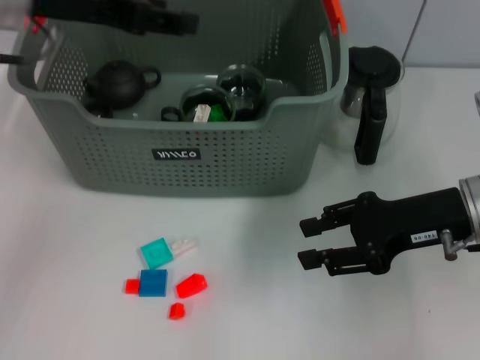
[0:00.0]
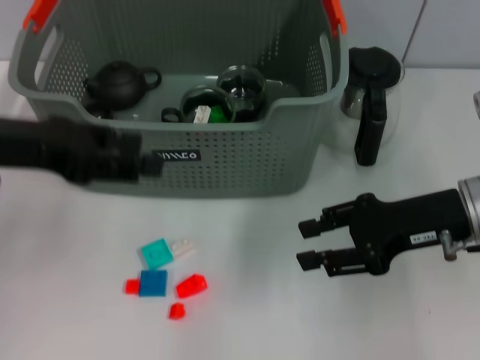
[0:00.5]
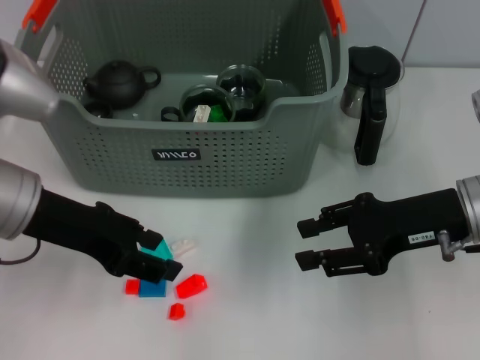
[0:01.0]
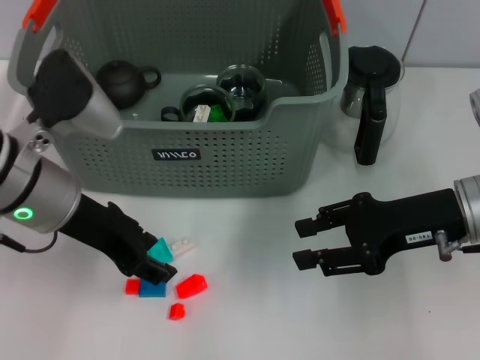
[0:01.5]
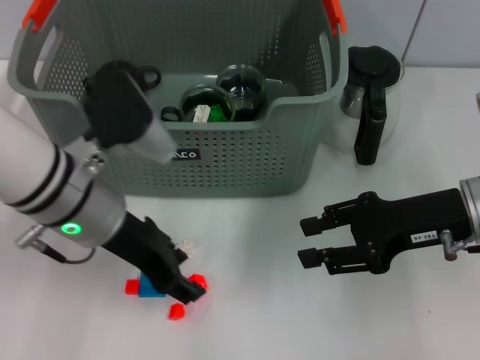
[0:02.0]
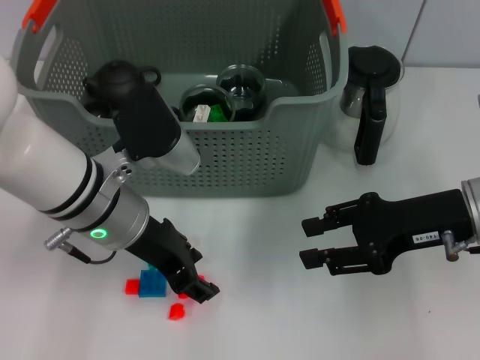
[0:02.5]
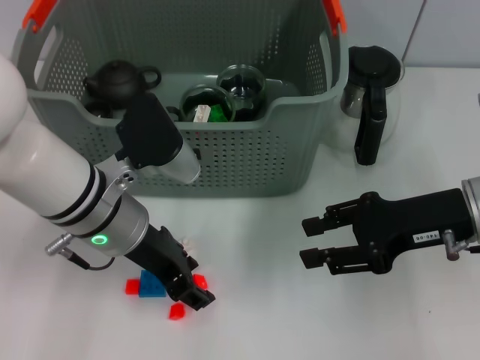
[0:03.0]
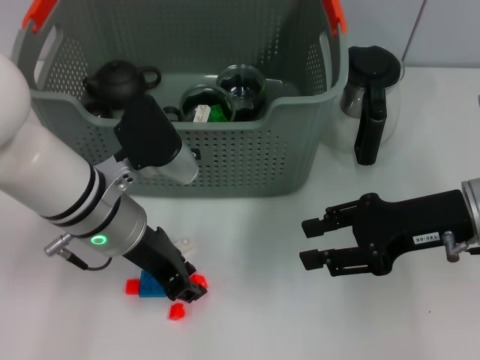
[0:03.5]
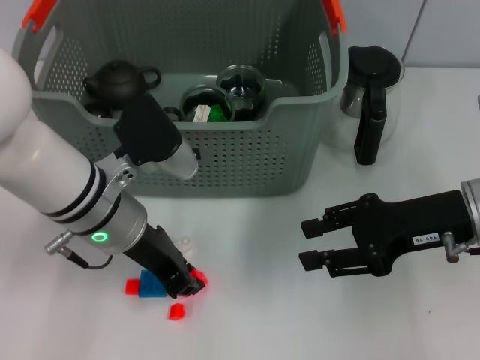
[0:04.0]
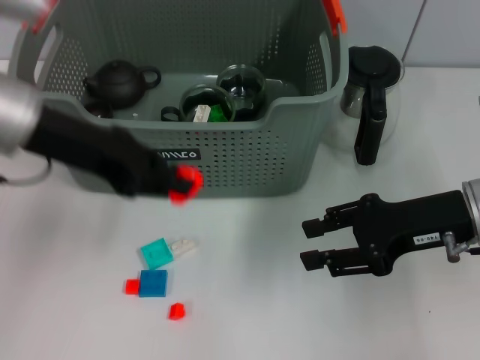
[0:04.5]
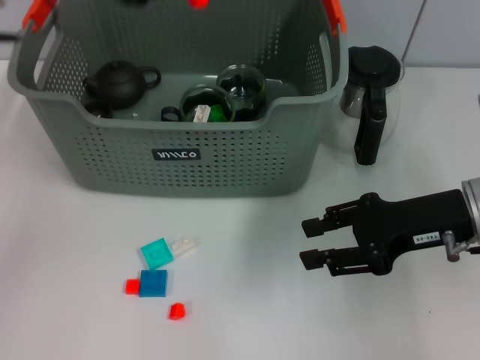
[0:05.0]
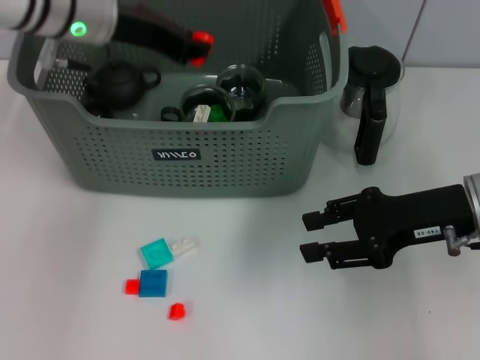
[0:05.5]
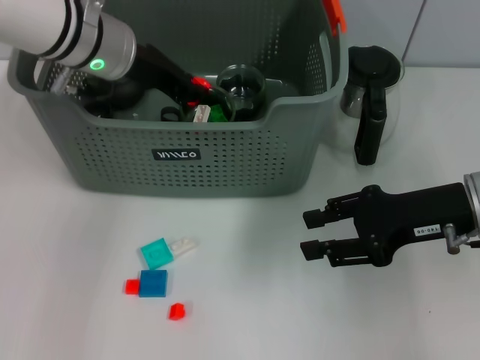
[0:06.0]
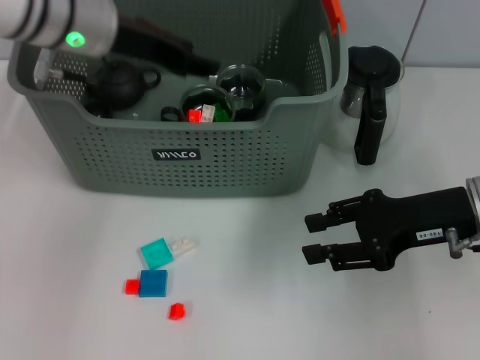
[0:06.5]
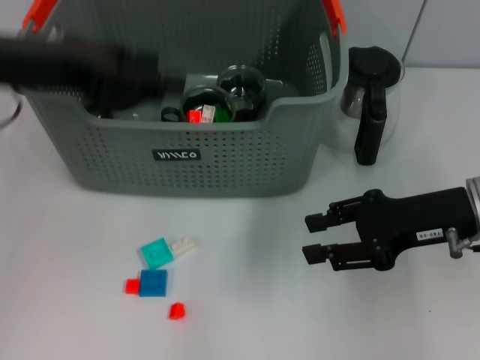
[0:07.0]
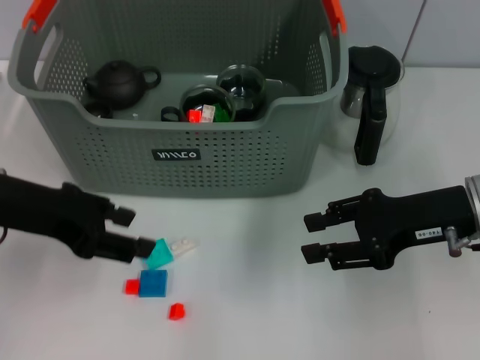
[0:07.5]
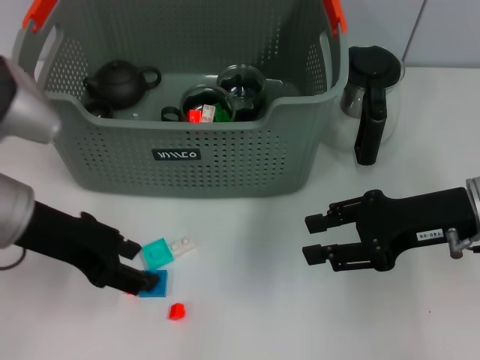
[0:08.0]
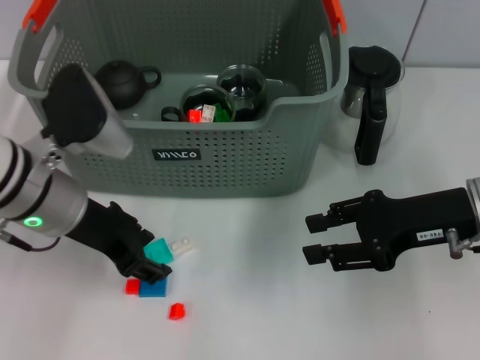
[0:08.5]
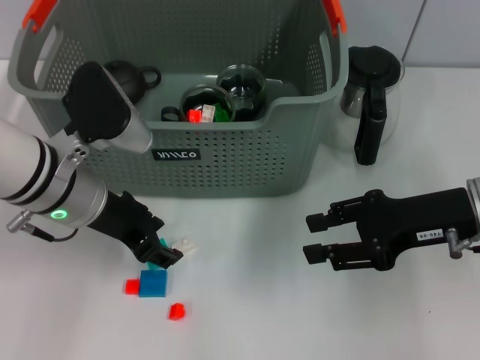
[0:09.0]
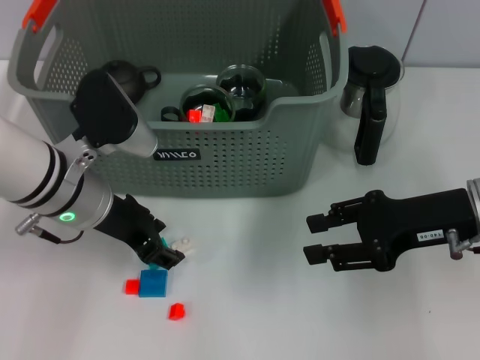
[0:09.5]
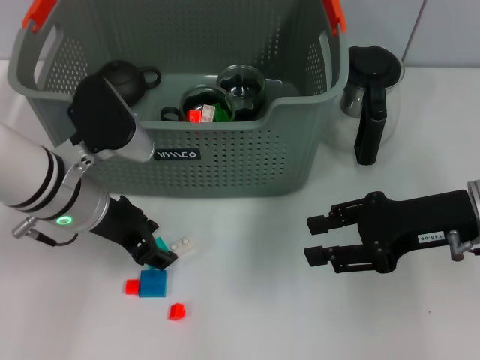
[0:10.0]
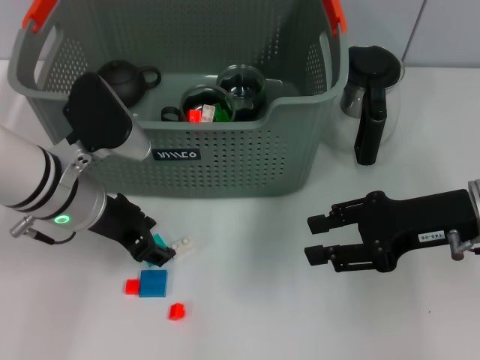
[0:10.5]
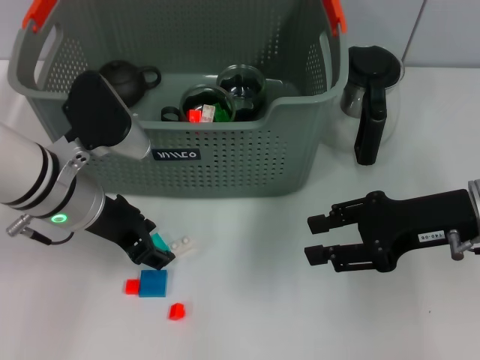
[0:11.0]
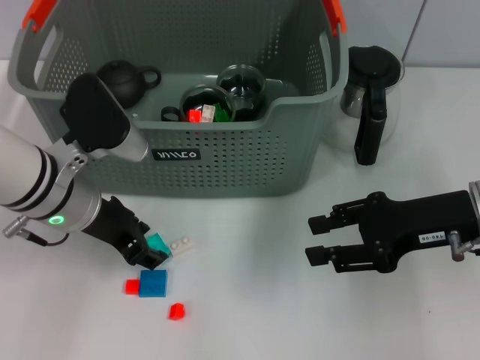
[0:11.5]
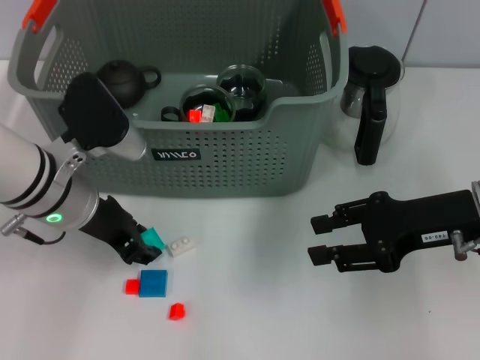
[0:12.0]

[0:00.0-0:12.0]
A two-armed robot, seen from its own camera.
Task of the whole recording: pick up the teacup on the table and place it into the storage bin, pick up the block on the table and place it into the storage bin.
Step, 0.0 to 4.0 s: Grasp the orange block with left gripper.
Step, 4.5 to 6.5 s: Place the orange block in the storage box with left gripper.
0.0 to 2.0 s: The left gripper shifts about 15 cm downward, to the right and backward.
2.0 to 4.0 s: The left gripper closes up.
4.0 to 6.0 s: The left gripper travels forward and upward by about 15 cm.
6.0 to 8.0 s: The left gripper travels backward and to the left by roughly 15 cm, and opens its fingers.
8.0 to 10.0 s: The left gripper travels downward by roughly 5 cm.
10.0 to 12.0 s: The two grippers keep their place.

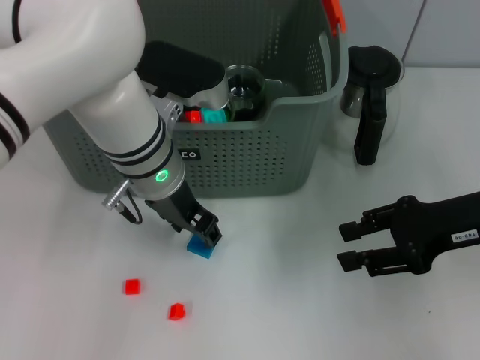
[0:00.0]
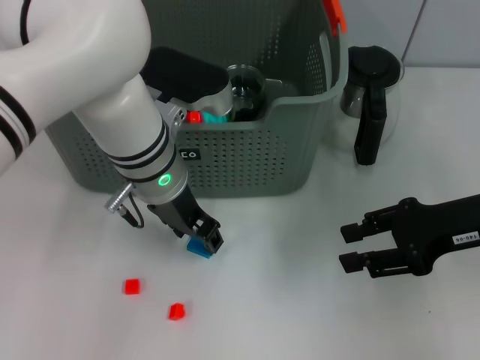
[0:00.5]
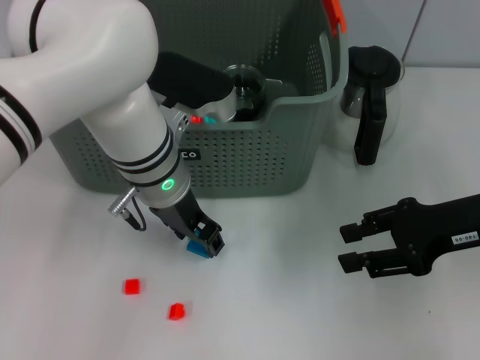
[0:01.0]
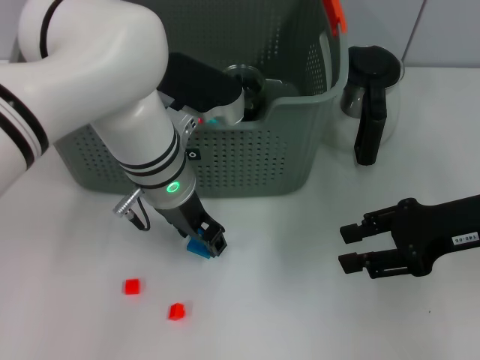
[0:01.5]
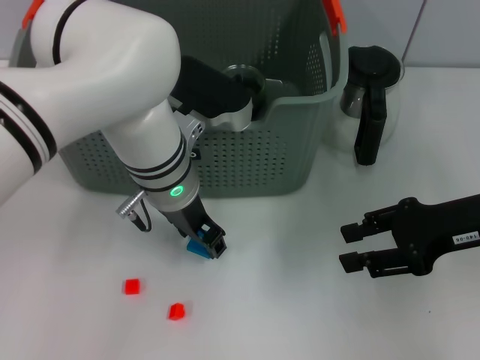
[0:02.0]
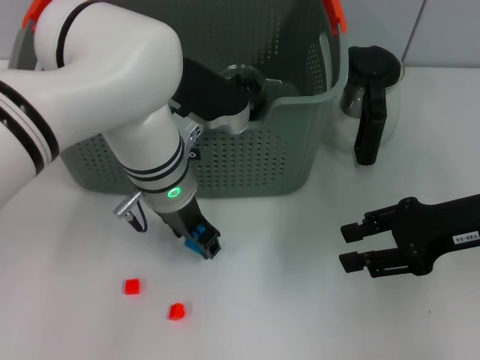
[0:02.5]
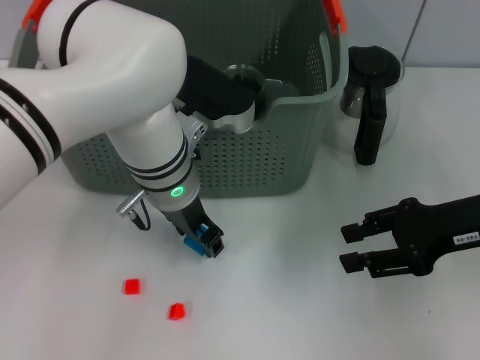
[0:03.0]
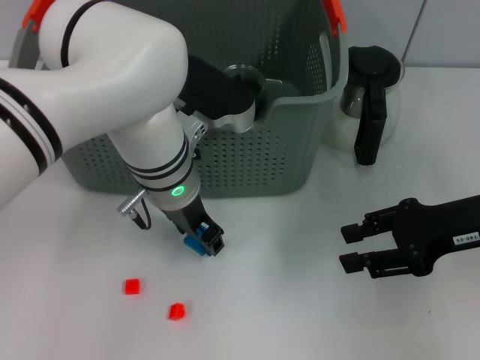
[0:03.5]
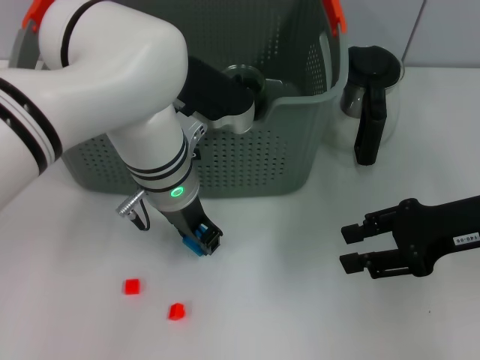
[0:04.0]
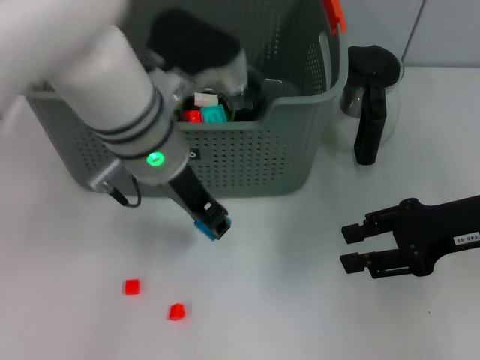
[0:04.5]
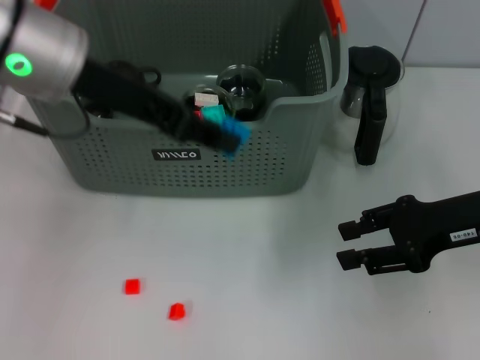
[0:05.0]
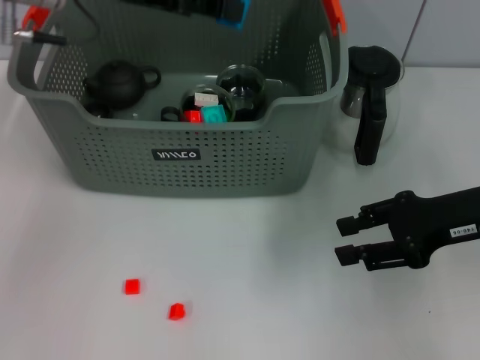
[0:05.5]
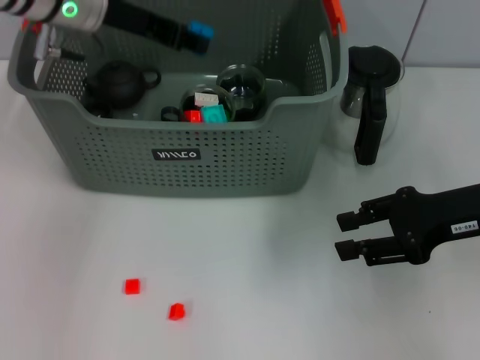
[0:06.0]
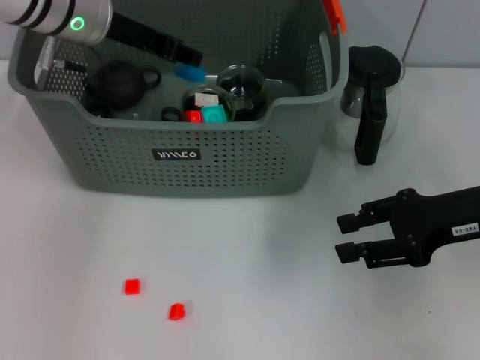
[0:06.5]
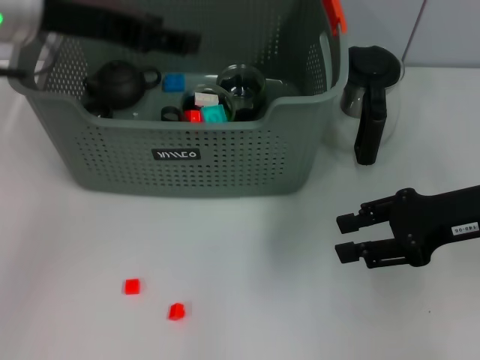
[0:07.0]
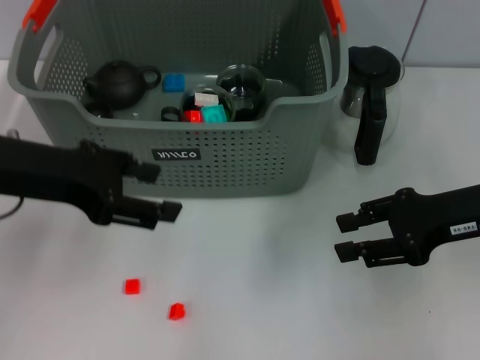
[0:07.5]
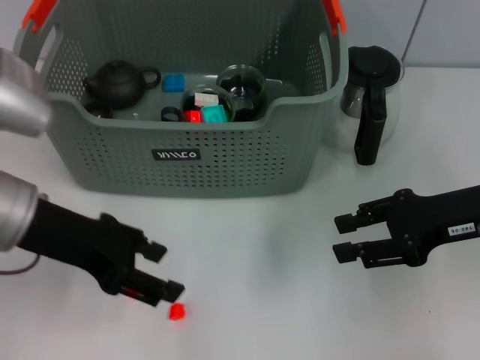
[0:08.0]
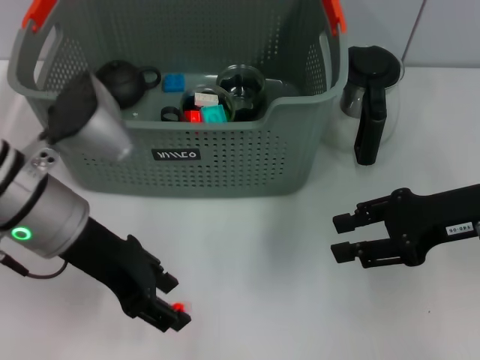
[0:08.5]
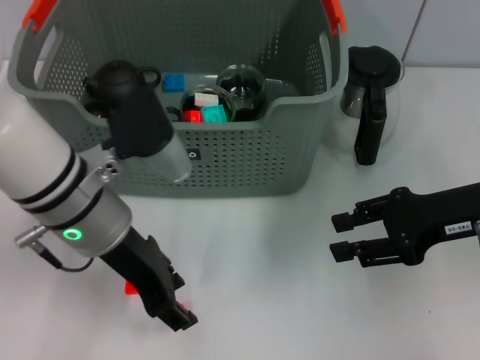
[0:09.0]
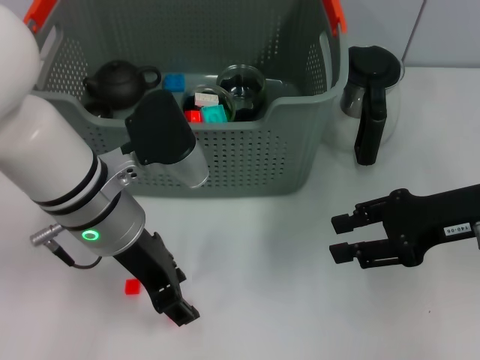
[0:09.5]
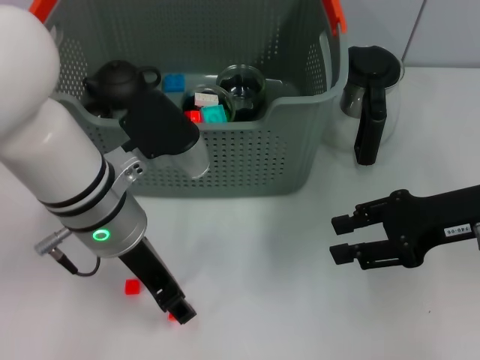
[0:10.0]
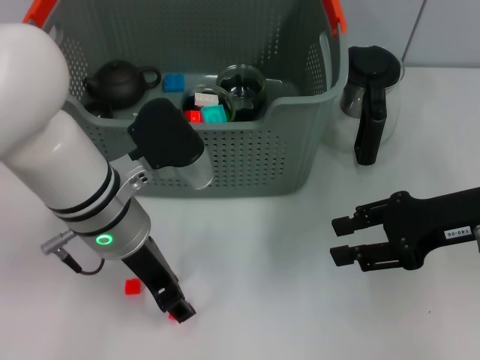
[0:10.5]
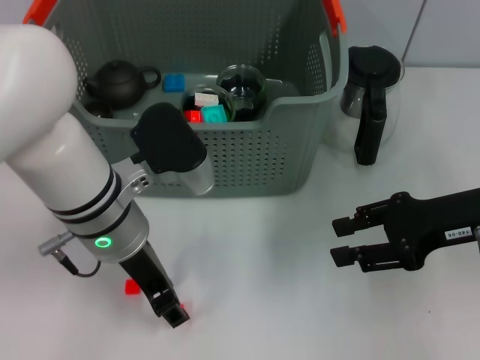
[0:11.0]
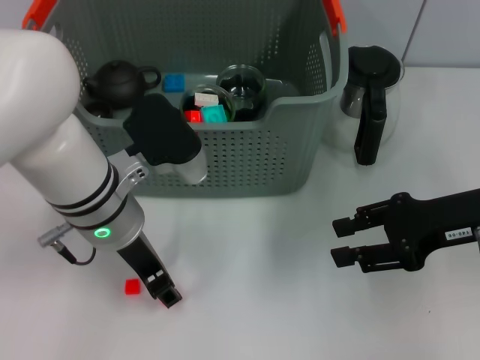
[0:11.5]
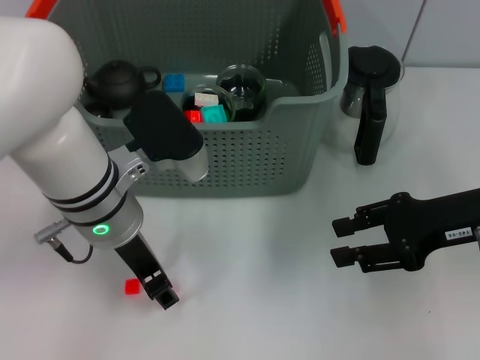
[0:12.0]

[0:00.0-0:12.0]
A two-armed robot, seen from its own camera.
Task of the whole recording: pick up the teacup on the table and place it into the storage bin, pick up the block on the table and place it into the storage bin.
Step, 0.0 to 4.0 s: Grasp the dark blue block with left gripper.
Step, 5.0 to 6.5 s: Place the dark blue block in the storage box with left gripper.
0.0 to 2.0 s: The grippers stay close to where they were, moving slightly.
2.0 to 4.0 s: Neither gripper changes place.
4.0 to 6.0 s: The left gripper shifts roughly 15 cm to the left, upward and forward.
6.0 to 8.0 s: The left gripper moves backward, about 15 cm, and opens.
8.0 to 10.0 s: The left gripper moves to the right, about 10 cm.
10.0 to 12.0 s: The grippers stay close to where they were, moving slightly.

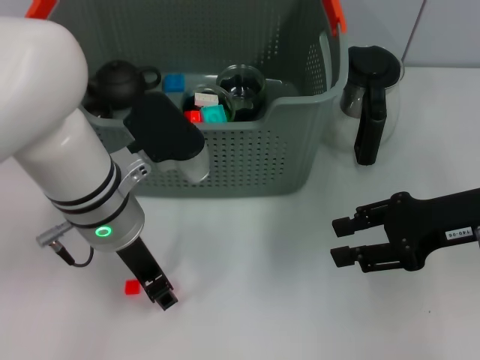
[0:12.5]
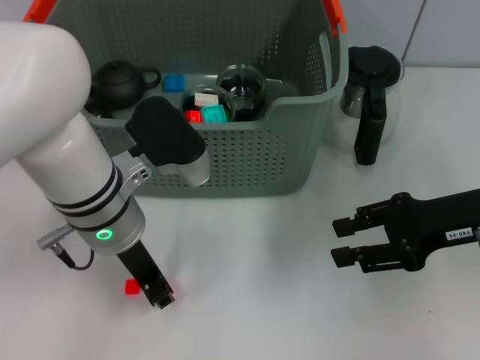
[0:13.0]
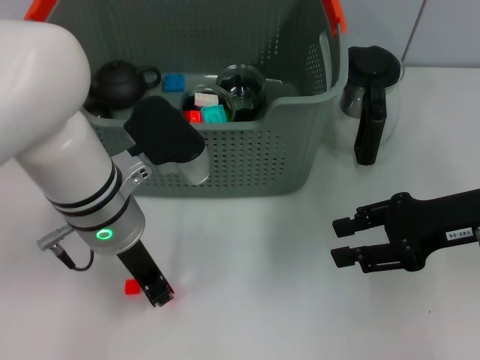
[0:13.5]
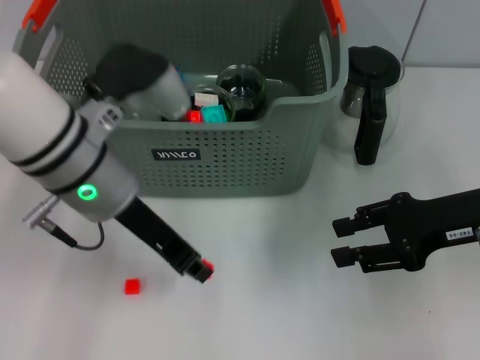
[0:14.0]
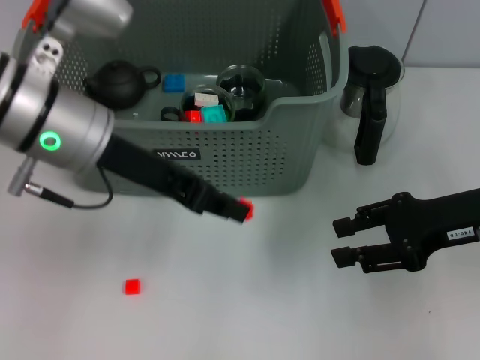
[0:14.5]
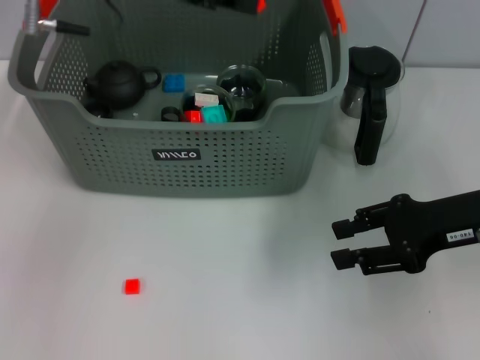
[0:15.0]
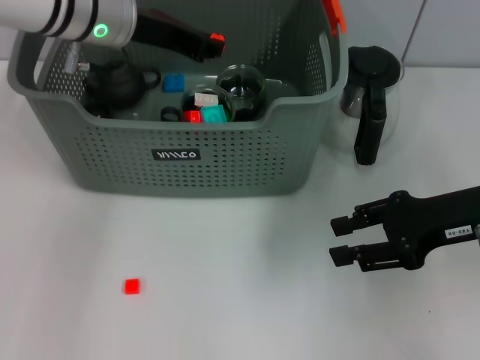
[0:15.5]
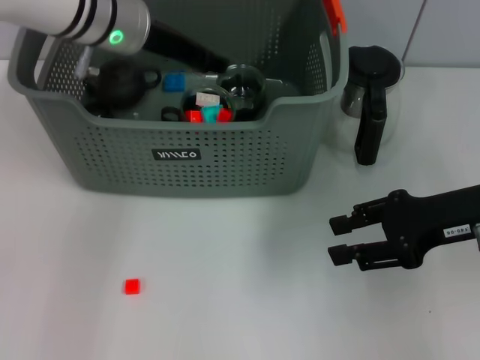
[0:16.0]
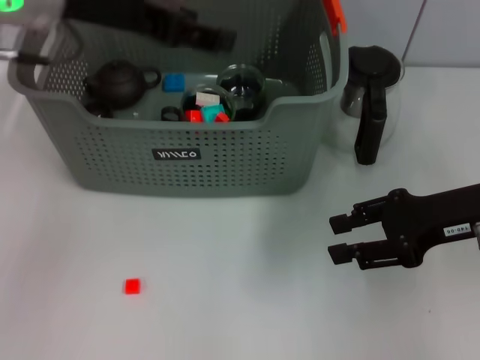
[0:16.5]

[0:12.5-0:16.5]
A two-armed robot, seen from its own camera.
Task of the whole recording: pick up the teacup on the table and place it into the storage bin, pick up the block on the table and place it into the storage bin.
Step, 14.5 to 16.0 s: Place the orange block in the storage box with left gripper.
12.5 to 14.5 s: The left gripper heads upward, covering roughly 10 cm, and closes its fingers.
14.5 to 16.5 s: The left gripper goes some 5 cm upward, goes forward and returns, some 10 cm each way, and opens.
